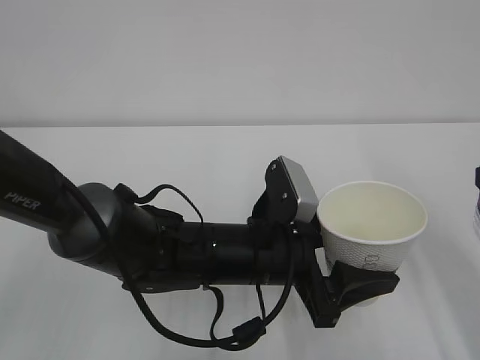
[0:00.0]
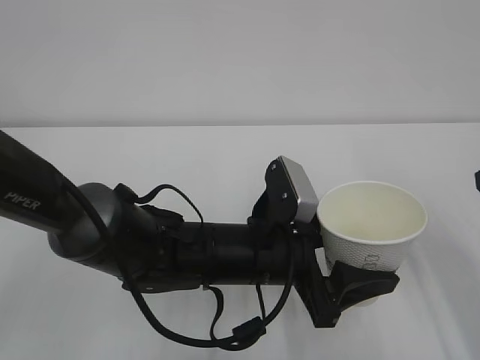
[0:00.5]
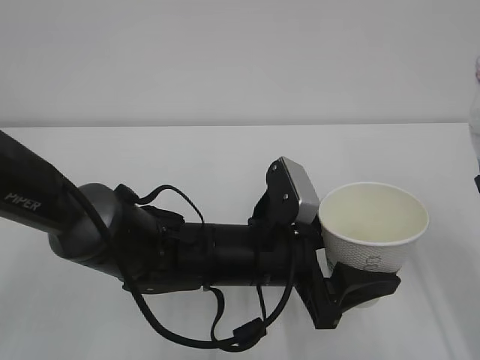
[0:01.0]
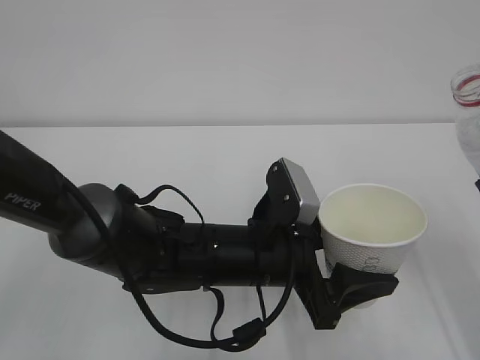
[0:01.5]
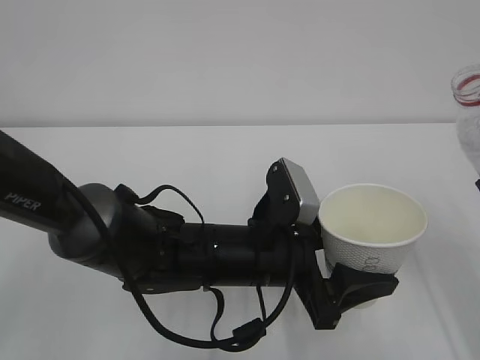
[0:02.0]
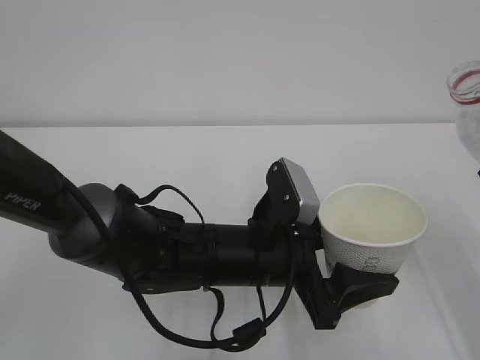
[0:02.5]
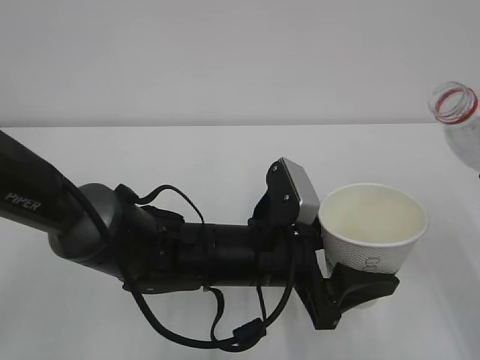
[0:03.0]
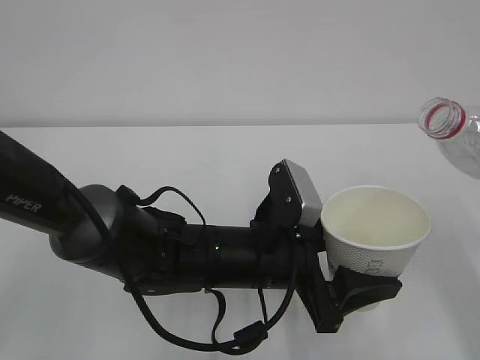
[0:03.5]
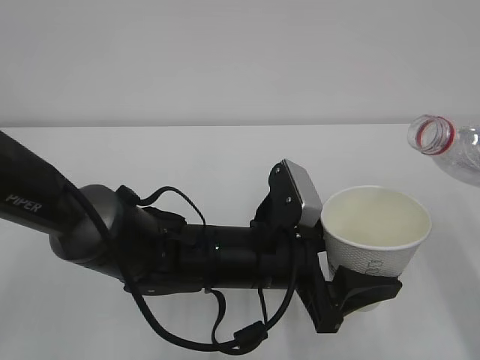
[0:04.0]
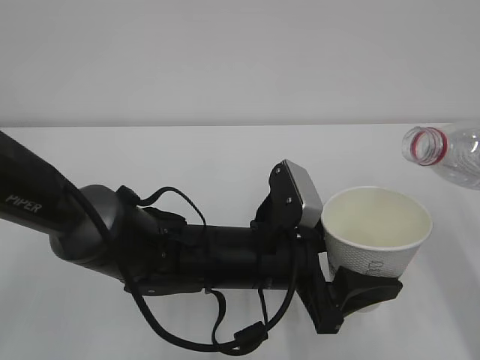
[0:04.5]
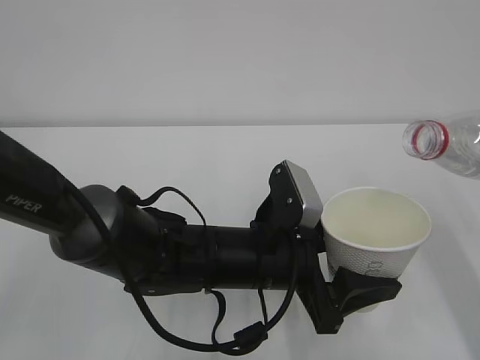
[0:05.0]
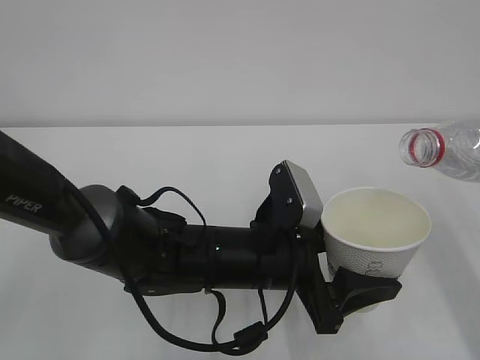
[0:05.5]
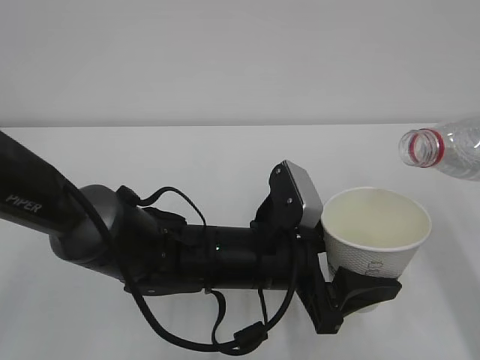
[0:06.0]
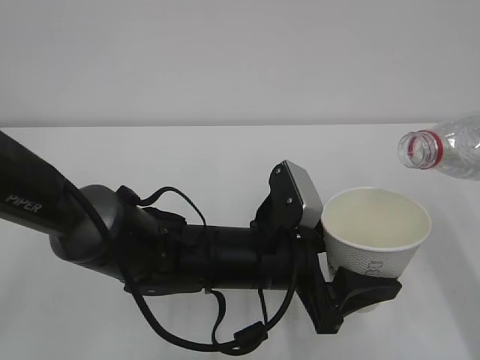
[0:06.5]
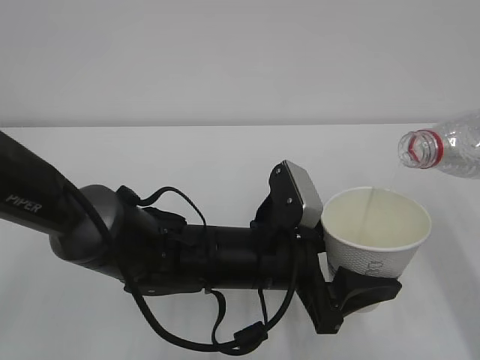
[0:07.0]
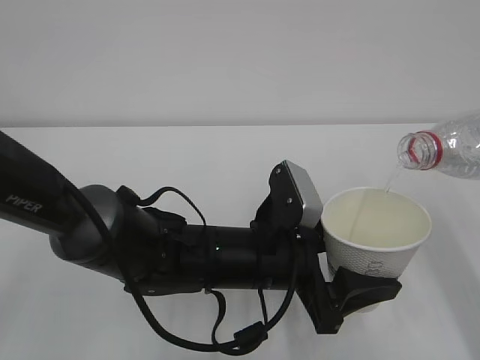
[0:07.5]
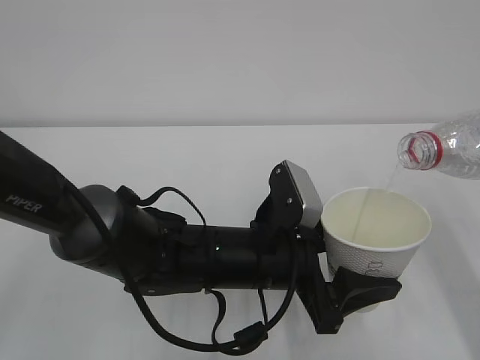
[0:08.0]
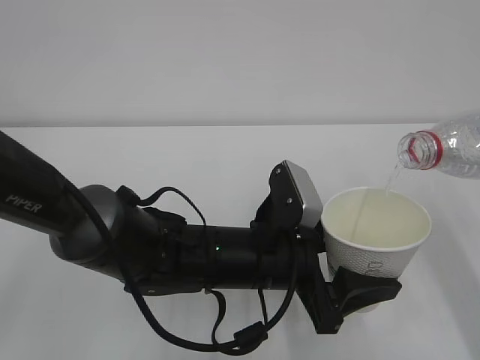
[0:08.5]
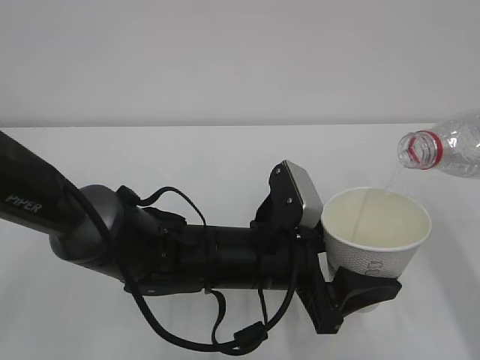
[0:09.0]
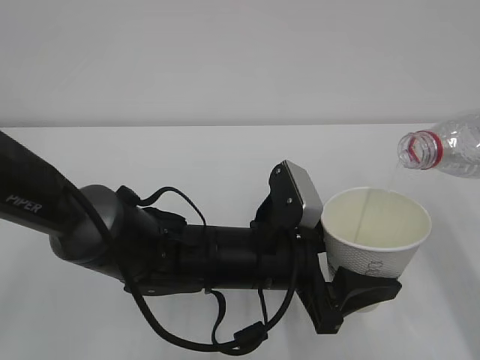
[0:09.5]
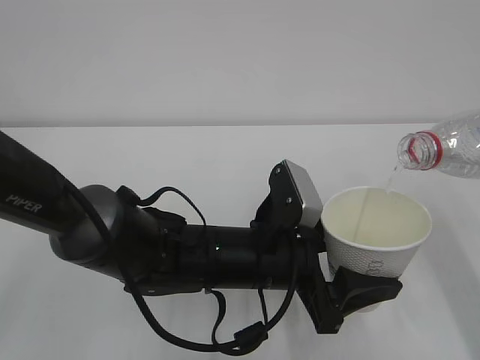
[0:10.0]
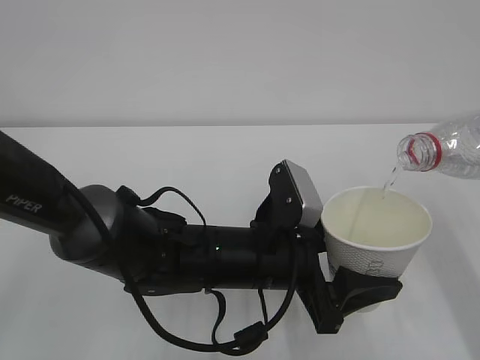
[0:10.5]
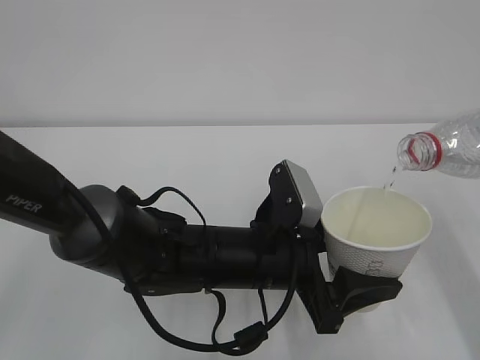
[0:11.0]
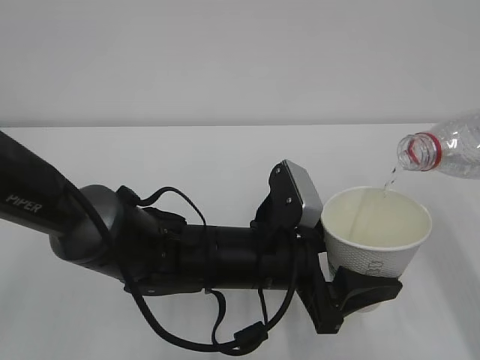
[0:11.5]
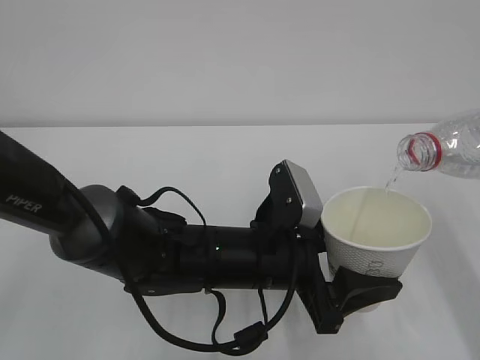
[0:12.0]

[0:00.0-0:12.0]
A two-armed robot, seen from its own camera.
0:04.0 to 0:06.0: The grippers make only small movements.
0:06.0 to 0:10.0: Both grippers stay about where they are.
0:10.0 to 0:12.0: Both grippers stay about where they are.

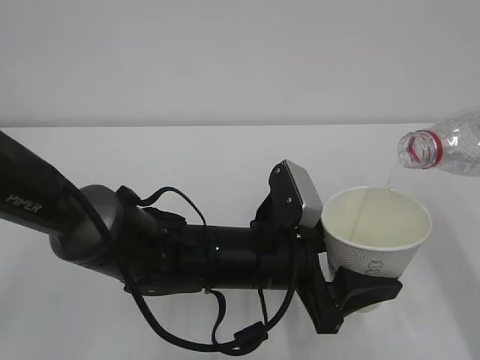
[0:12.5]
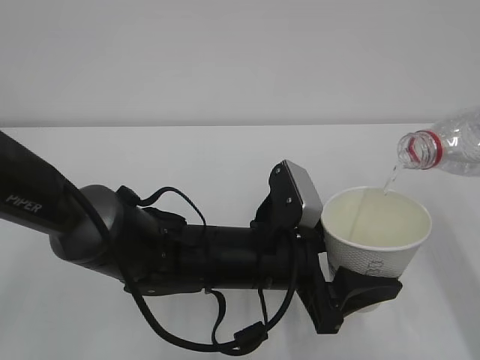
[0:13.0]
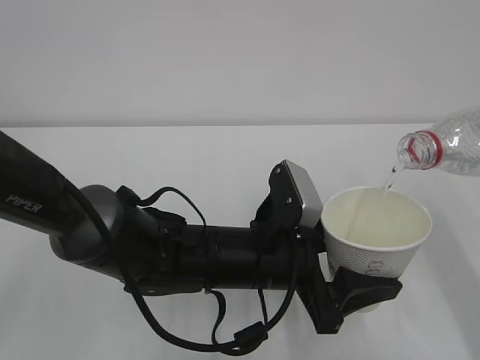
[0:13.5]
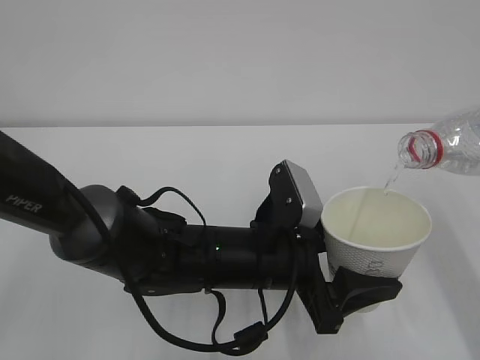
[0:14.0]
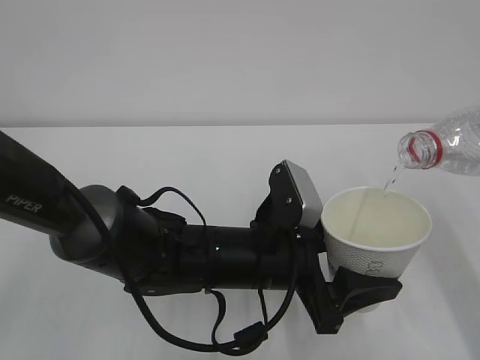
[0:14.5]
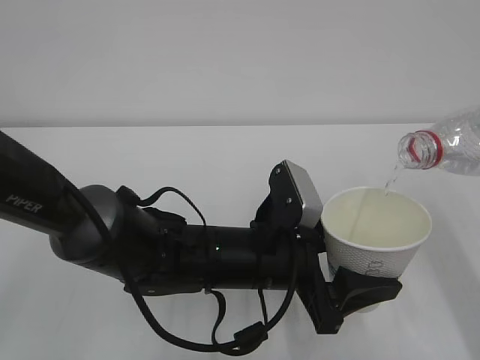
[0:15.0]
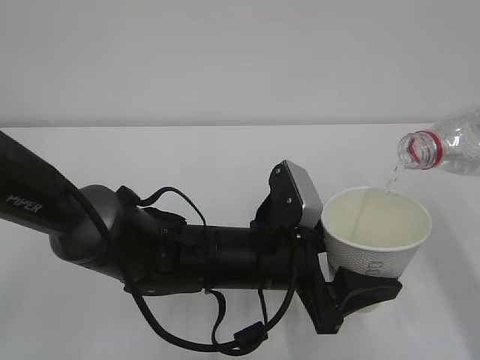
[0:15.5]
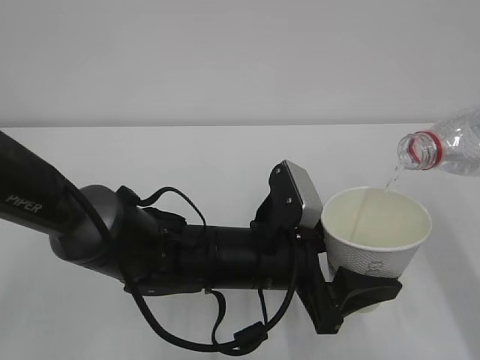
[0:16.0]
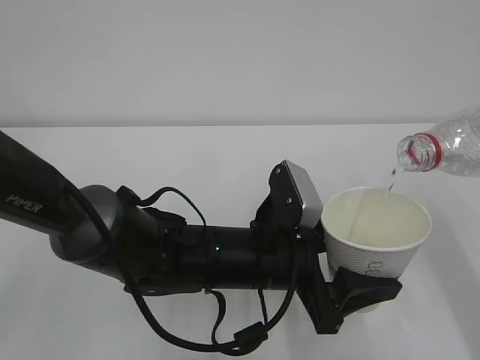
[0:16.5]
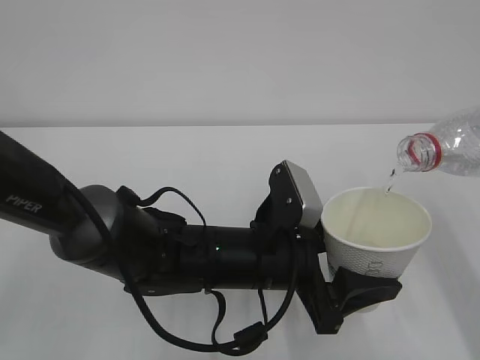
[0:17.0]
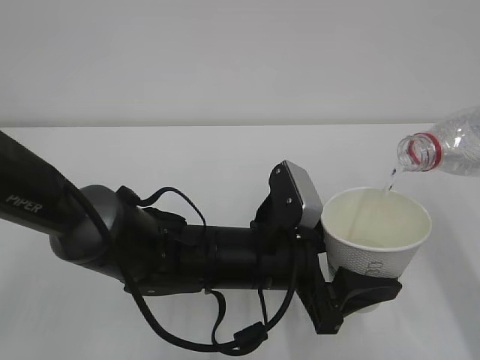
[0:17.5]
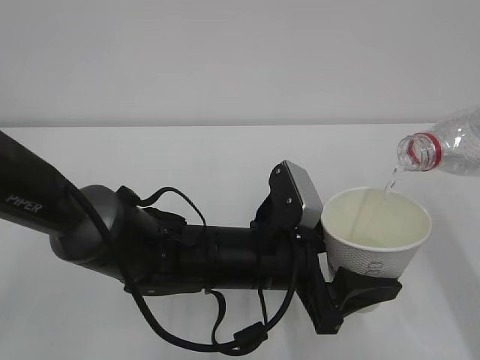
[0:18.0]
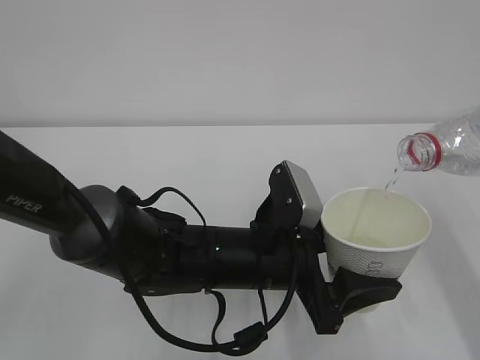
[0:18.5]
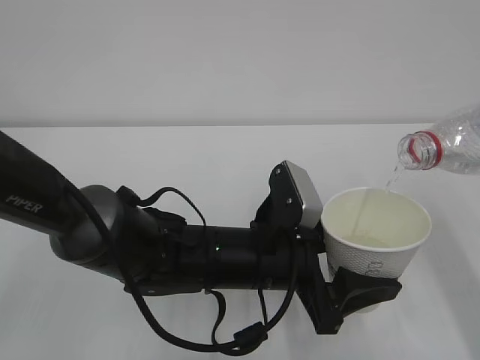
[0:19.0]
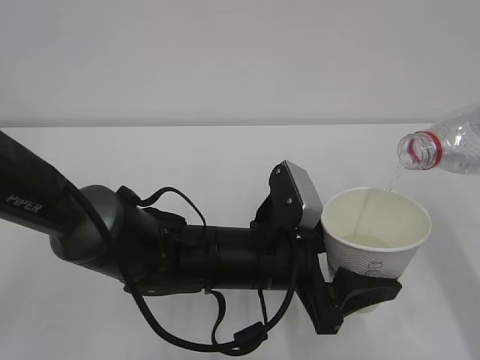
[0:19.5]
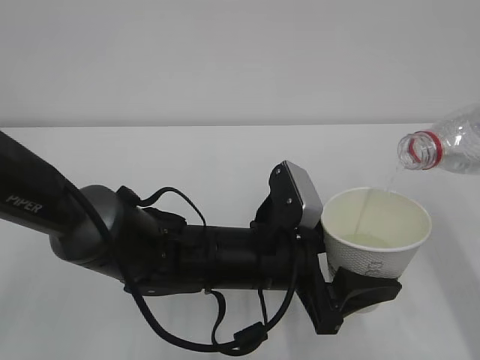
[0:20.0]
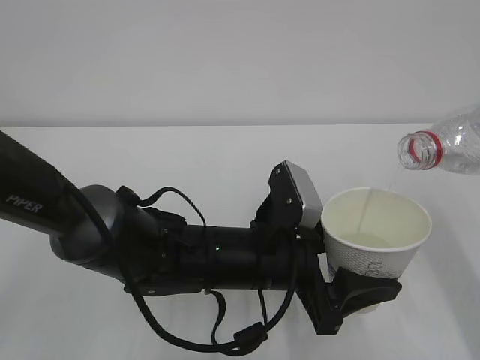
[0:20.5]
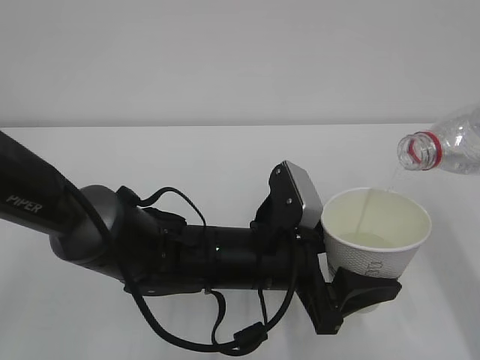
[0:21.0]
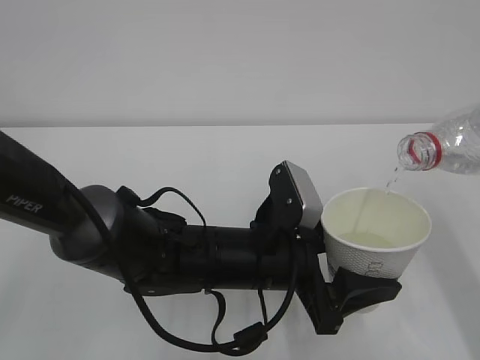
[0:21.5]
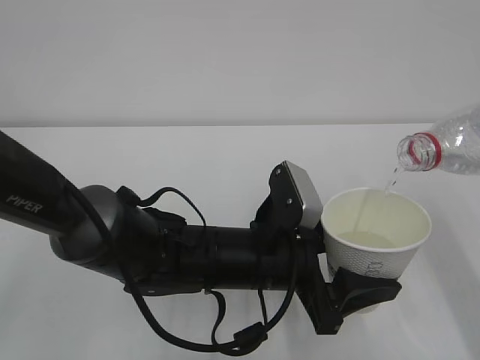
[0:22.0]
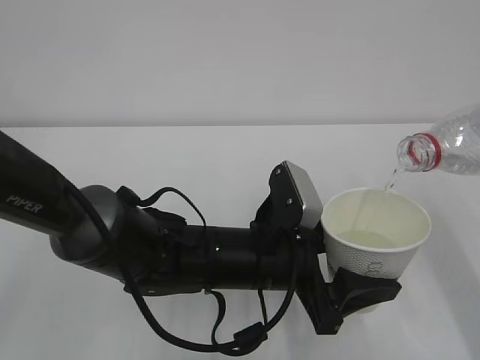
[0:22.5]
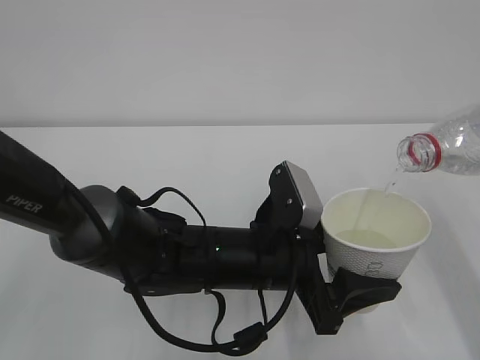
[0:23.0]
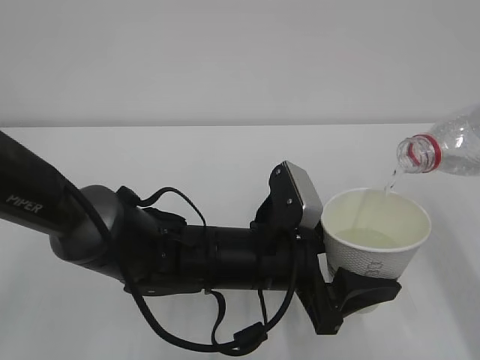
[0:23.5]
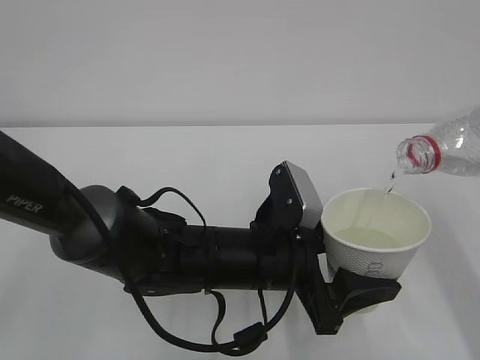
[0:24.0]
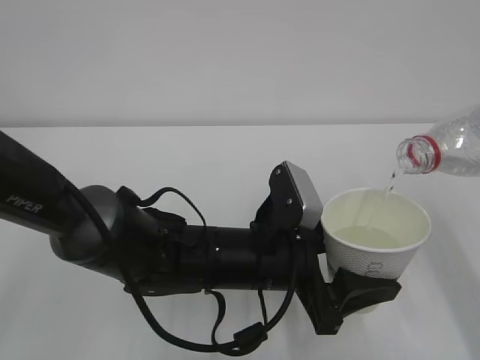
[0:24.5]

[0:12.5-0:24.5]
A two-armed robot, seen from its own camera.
0:12.5 to 0:22.5: Both grippers stay about where they are.
0:22.5 to 0:24.5: Neither gripper changes place.

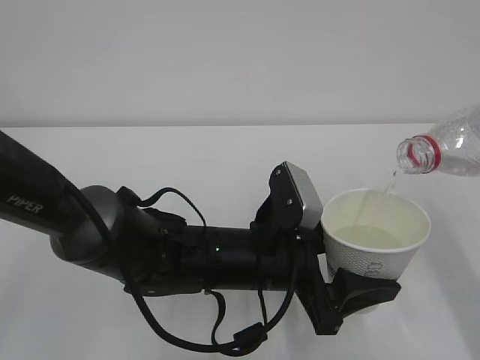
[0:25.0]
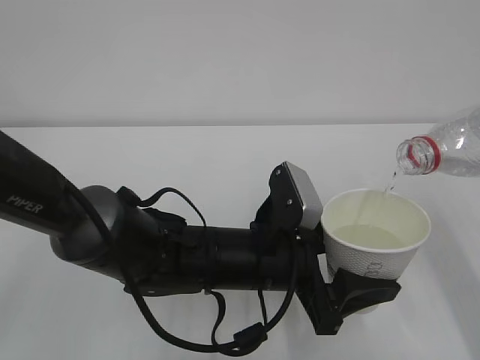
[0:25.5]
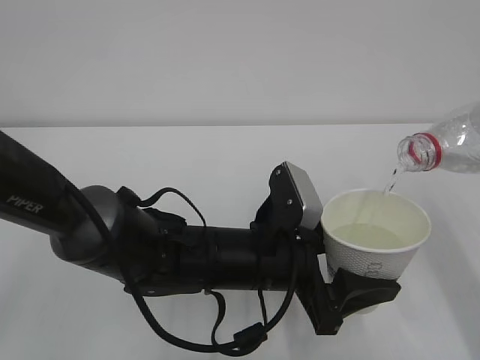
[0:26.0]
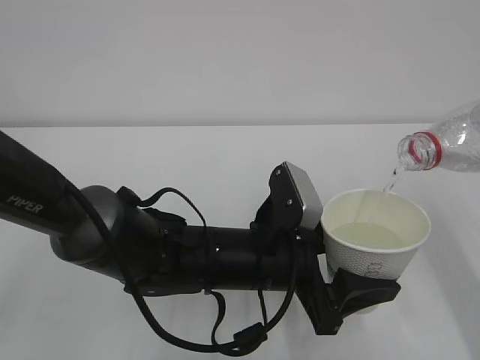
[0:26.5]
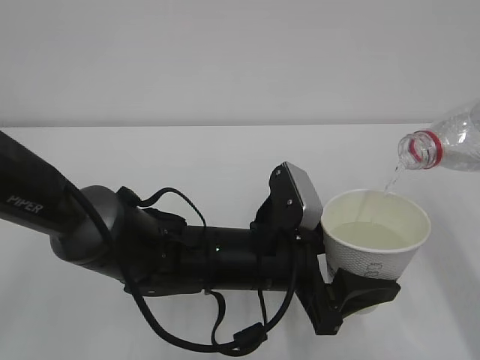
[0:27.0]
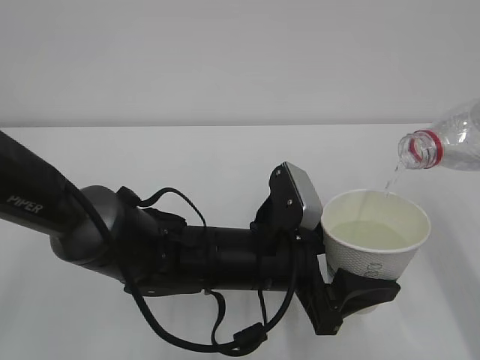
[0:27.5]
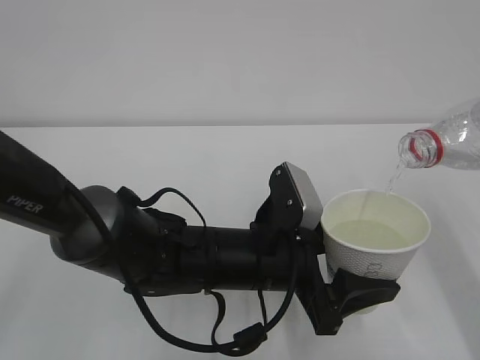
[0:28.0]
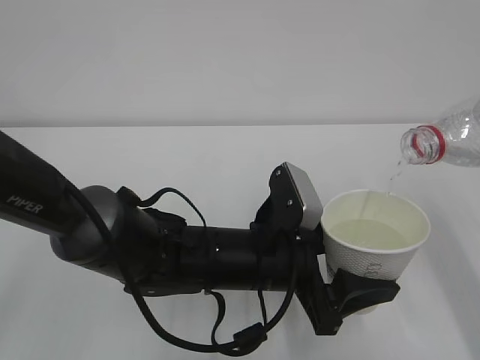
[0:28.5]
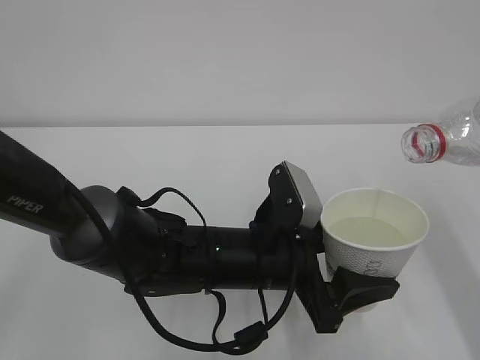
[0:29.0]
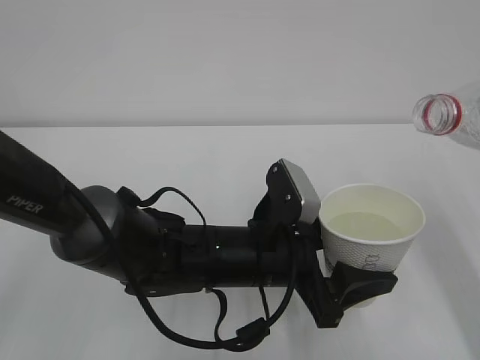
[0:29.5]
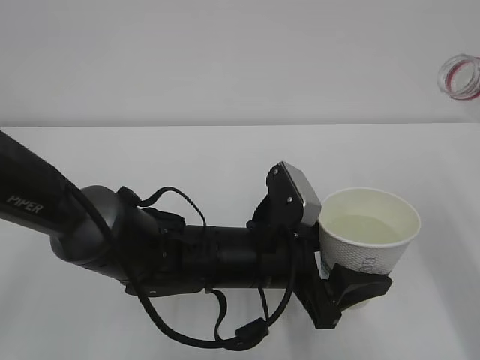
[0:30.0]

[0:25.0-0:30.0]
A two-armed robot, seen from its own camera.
0:25.0 to 0:27.5: Both grippers stay put.
